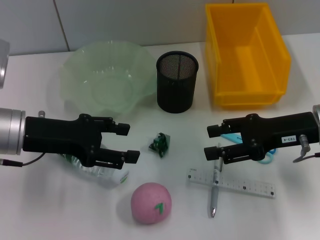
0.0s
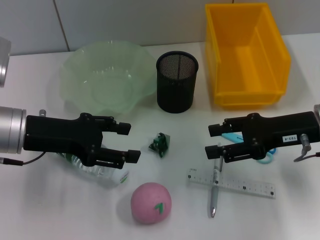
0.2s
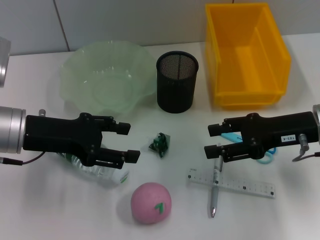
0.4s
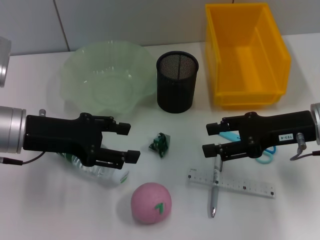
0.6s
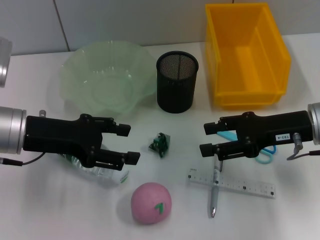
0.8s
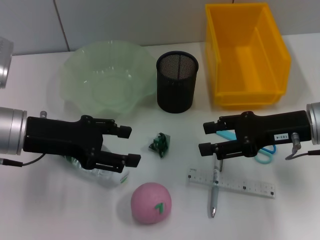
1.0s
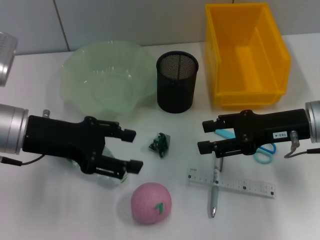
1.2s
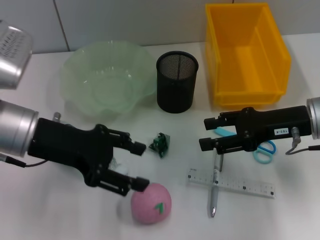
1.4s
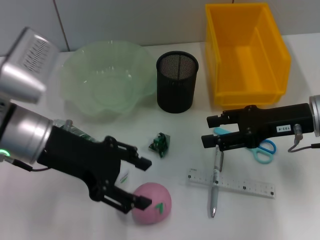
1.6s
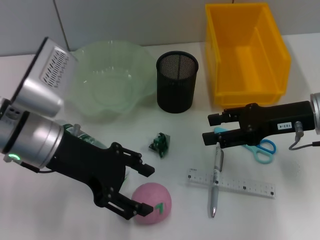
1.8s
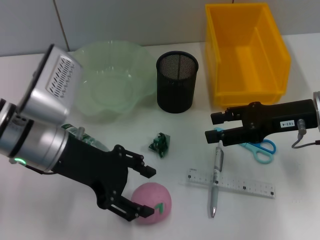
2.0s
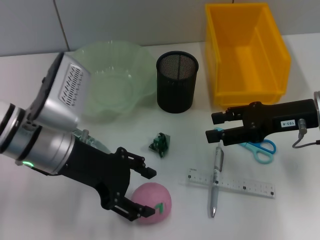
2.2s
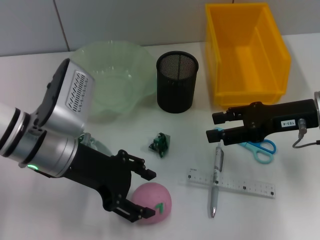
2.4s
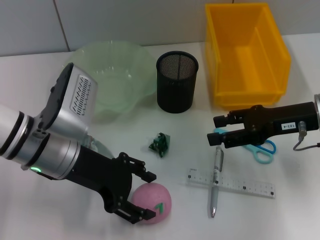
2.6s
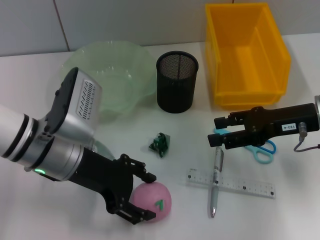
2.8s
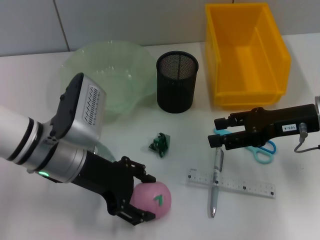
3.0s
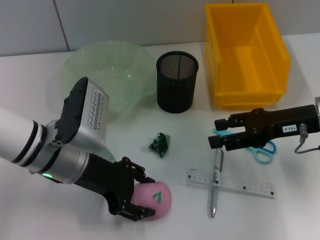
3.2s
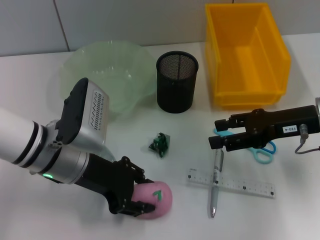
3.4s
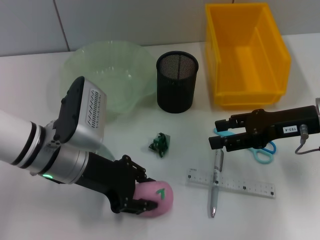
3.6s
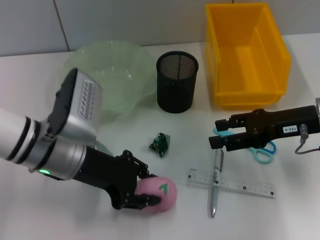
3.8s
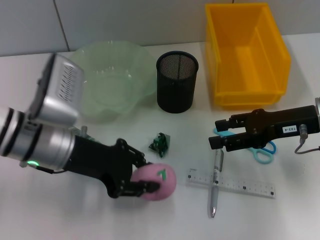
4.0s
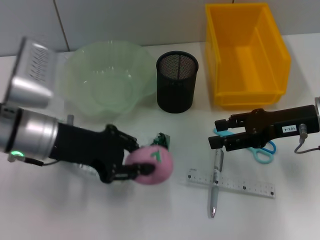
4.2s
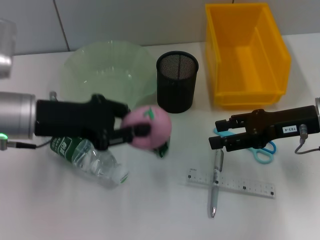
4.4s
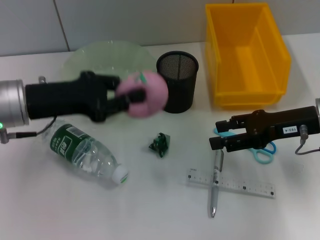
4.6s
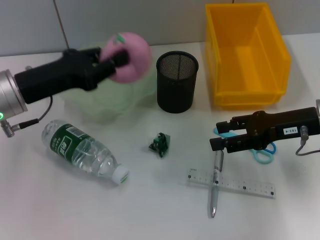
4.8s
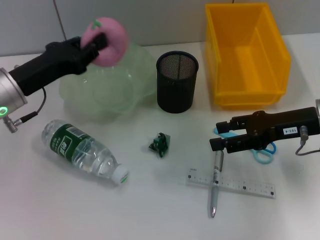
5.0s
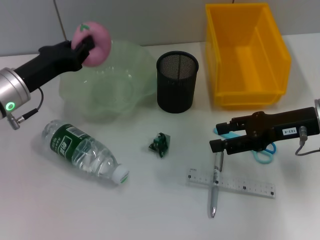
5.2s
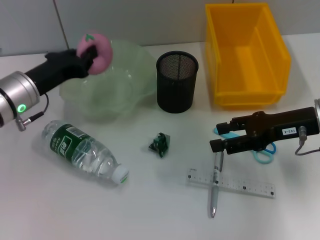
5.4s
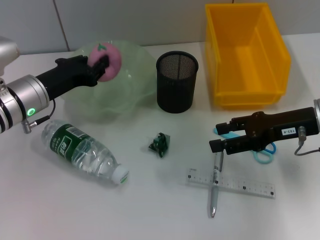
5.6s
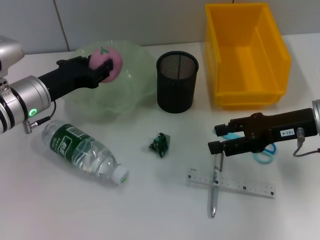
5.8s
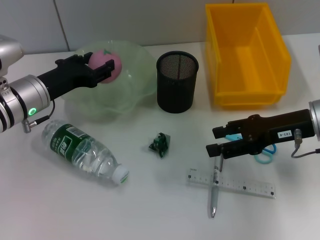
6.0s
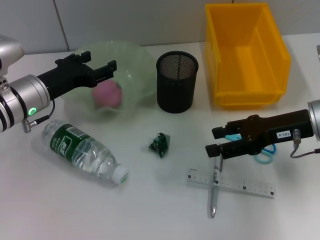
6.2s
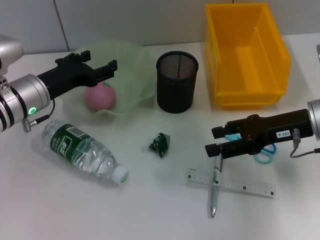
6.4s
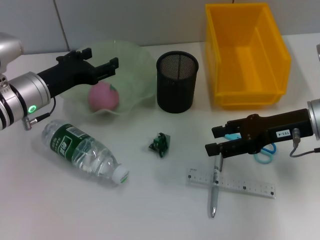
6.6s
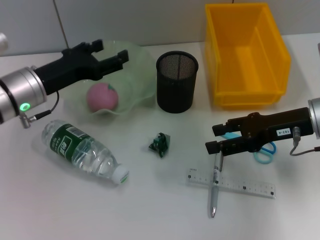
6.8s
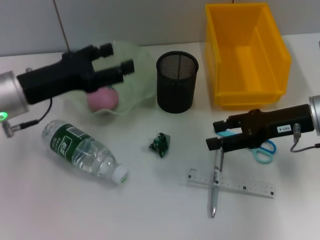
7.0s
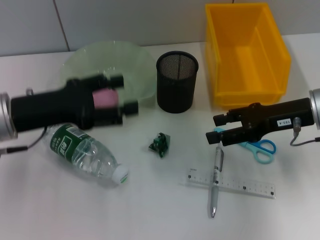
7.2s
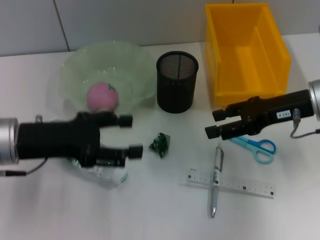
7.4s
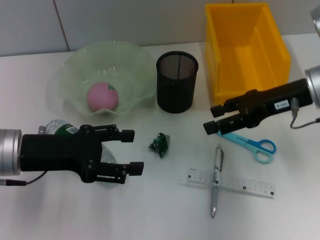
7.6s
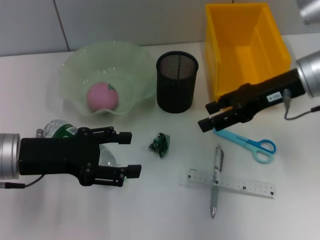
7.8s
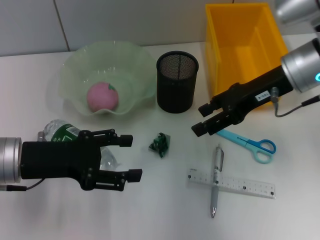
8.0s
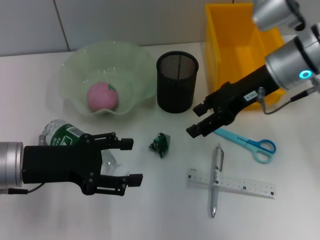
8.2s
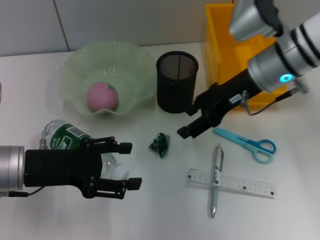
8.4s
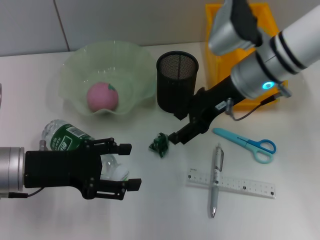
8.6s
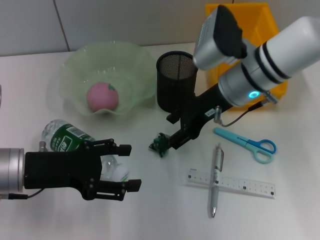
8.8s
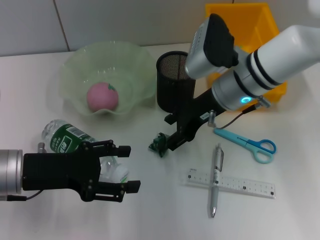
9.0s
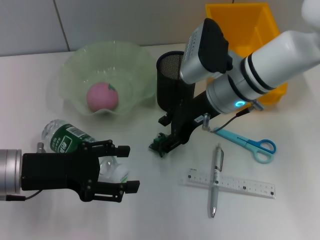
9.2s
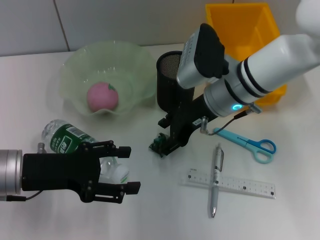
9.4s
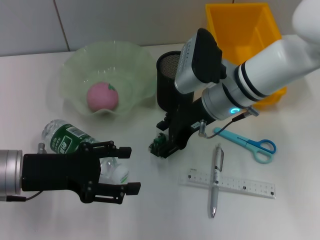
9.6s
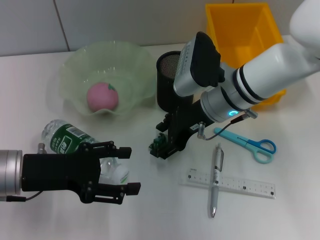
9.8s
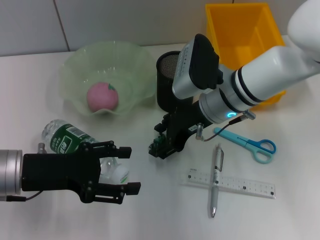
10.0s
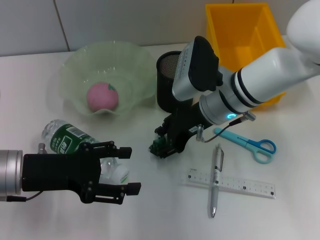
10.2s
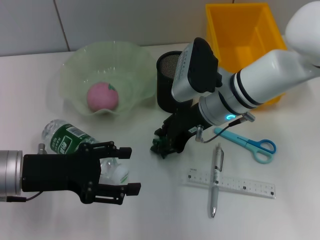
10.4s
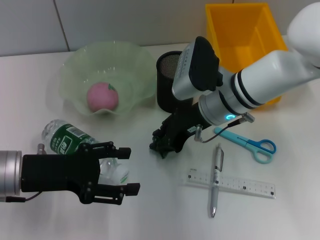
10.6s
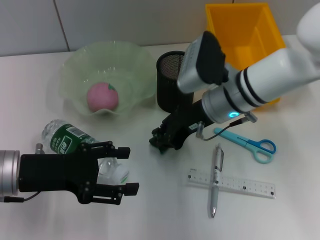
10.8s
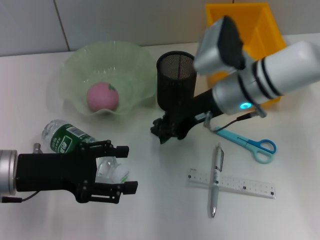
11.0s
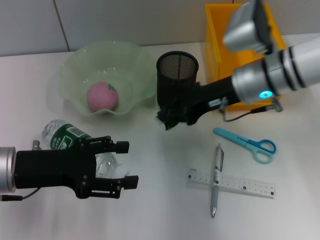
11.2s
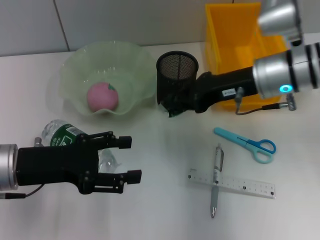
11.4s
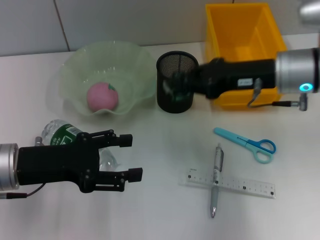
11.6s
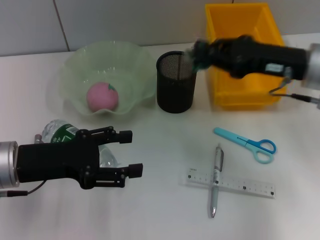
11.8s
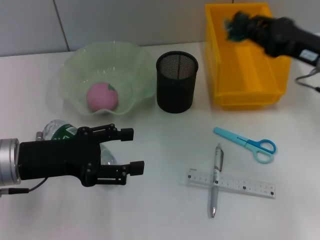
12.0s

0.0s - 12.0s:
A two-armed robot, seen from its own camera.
Step, 0.0s - 3.4s: Grab the peach with the left hand.
Step, 3.8s - 6.2s: Place the peach into the fruit bowl with the left hand.
Step, 6.4s - 10.4s: Grab the plastic with the right hand.
1.6s - 3.0s: The left gripper goes about 5 cm downward.
3.0s - 4.4s: The left gripper goes about 5 cm to the left, and closes.
4.4s - 6.0s: The left gripper is displaced downward and forward by approximately 10 cm.
6.0s - 7.6s: The left gripper moves backward, roughly 10 cm, and opens. The right gripper shifts by approximately 5 cm.
7.6s - 9.0s: The right gripper goes approximately 10 cm to the left.
9.0s - 10.4s: The grippers move only a little.
10.4s - 12.0s: The right gripper heads to the right, covering some 15 cm, and closes.

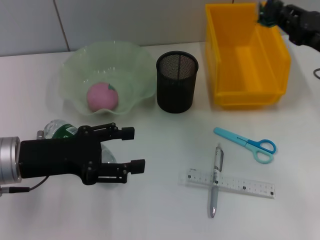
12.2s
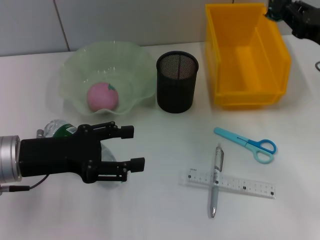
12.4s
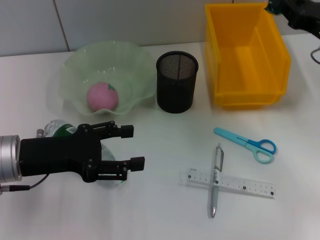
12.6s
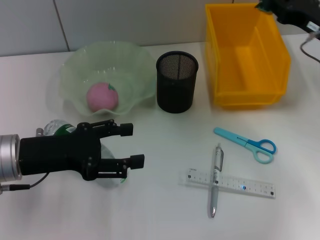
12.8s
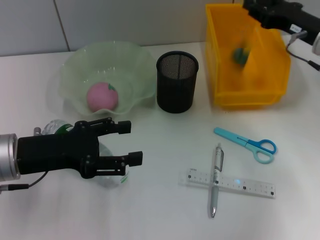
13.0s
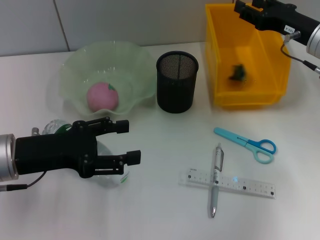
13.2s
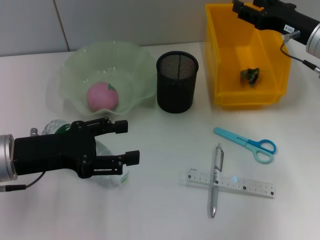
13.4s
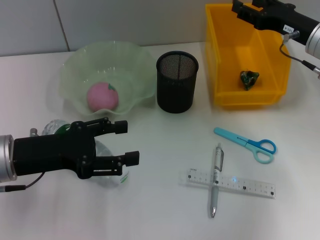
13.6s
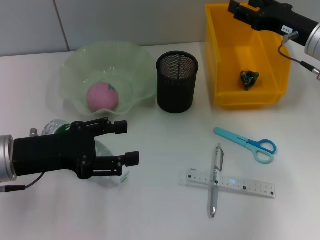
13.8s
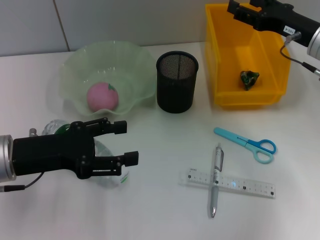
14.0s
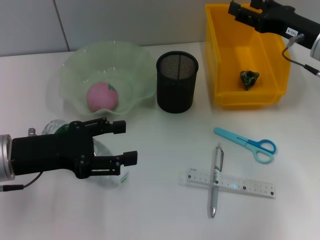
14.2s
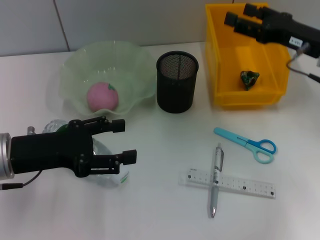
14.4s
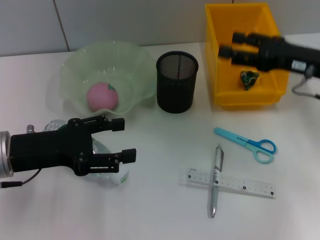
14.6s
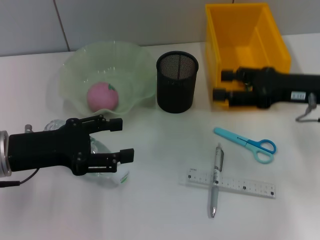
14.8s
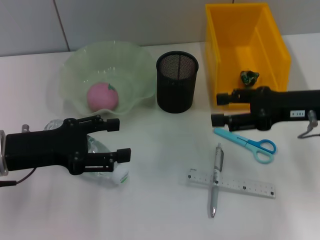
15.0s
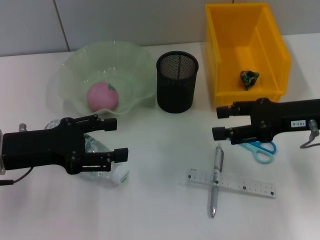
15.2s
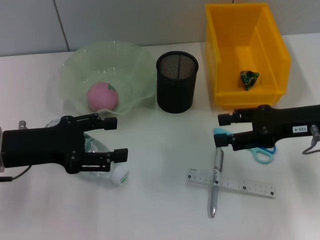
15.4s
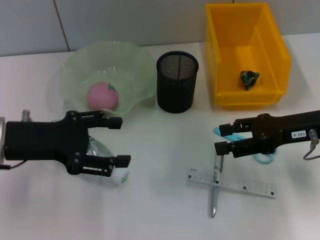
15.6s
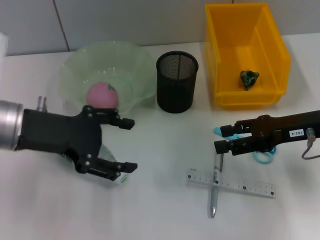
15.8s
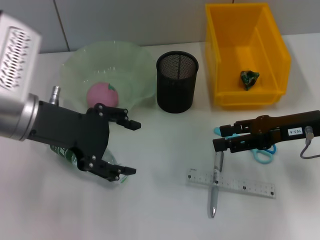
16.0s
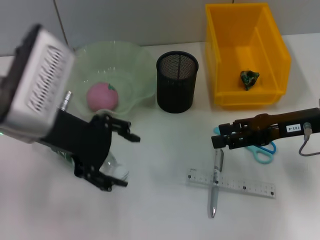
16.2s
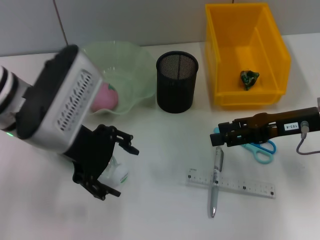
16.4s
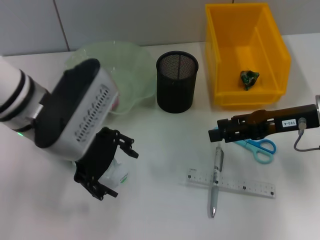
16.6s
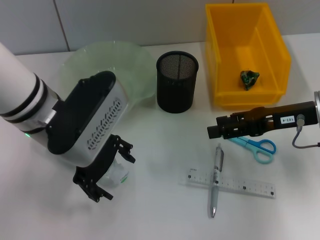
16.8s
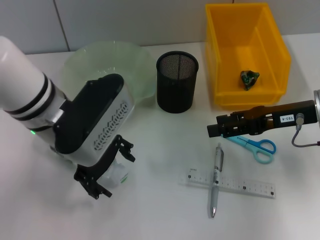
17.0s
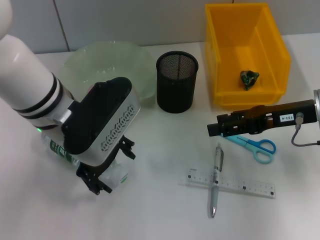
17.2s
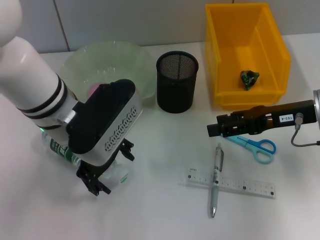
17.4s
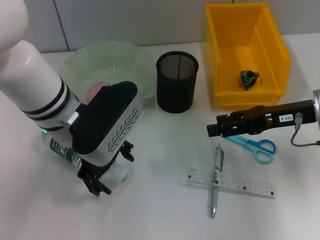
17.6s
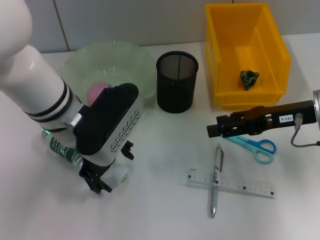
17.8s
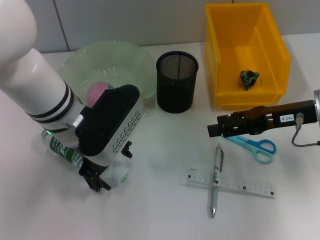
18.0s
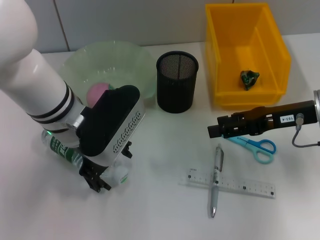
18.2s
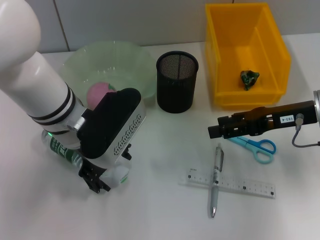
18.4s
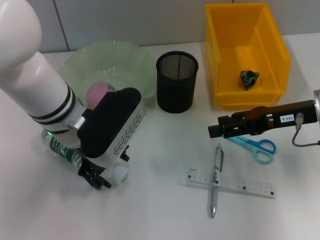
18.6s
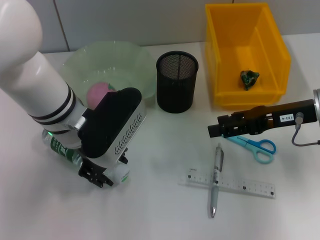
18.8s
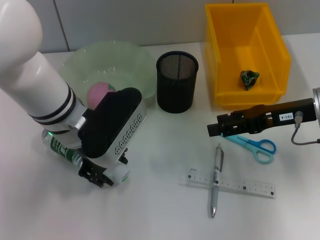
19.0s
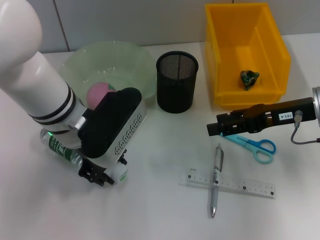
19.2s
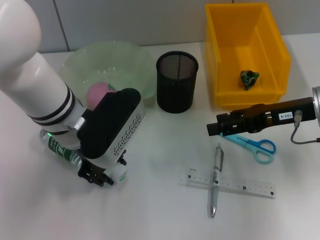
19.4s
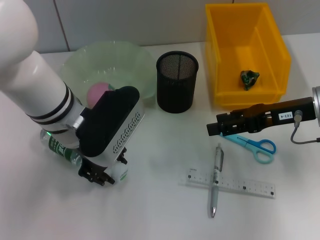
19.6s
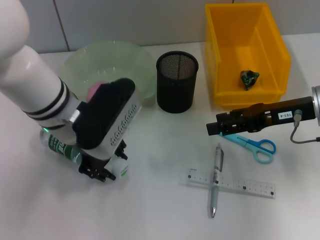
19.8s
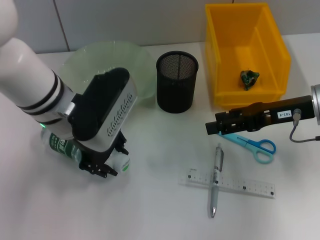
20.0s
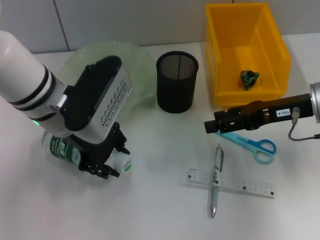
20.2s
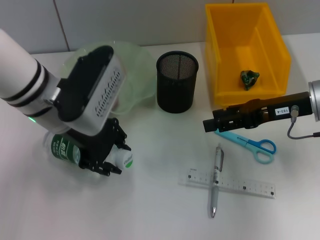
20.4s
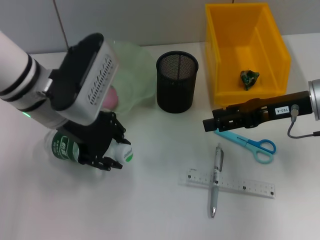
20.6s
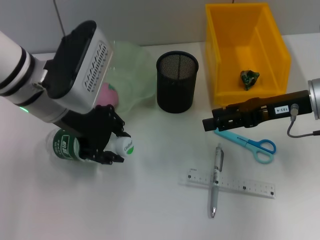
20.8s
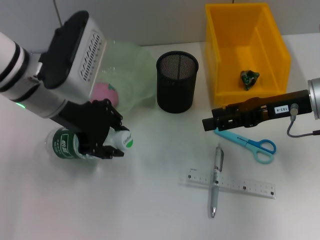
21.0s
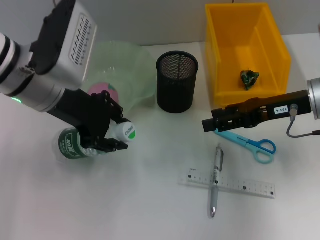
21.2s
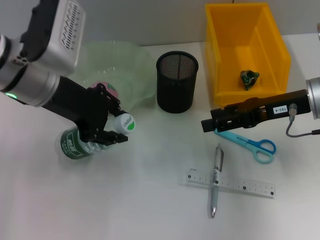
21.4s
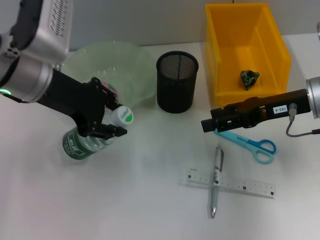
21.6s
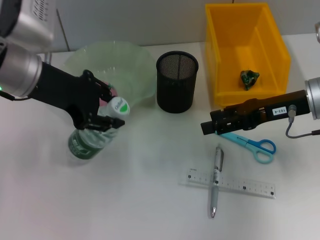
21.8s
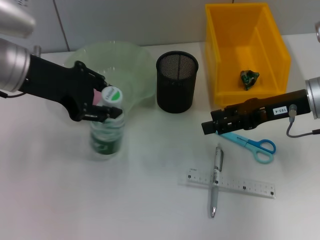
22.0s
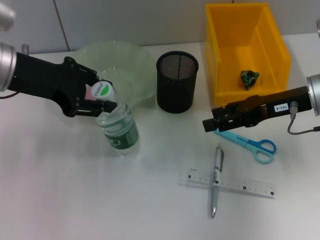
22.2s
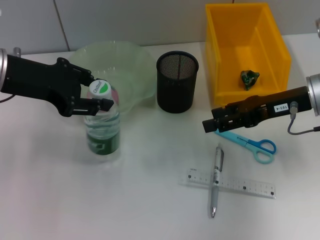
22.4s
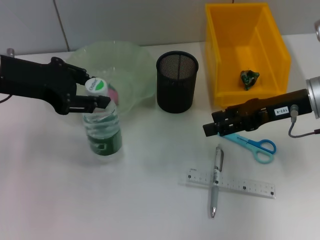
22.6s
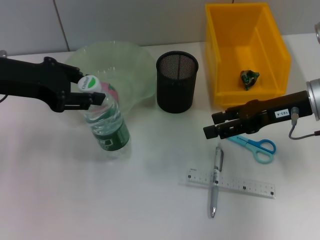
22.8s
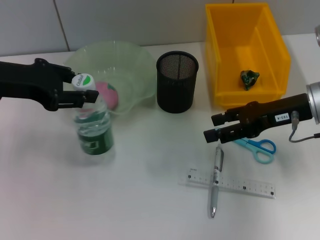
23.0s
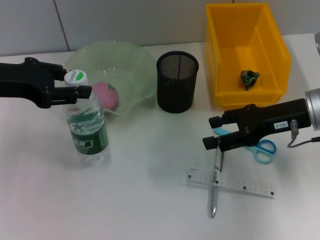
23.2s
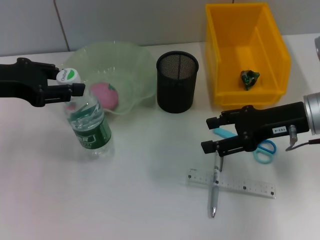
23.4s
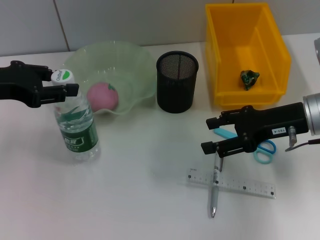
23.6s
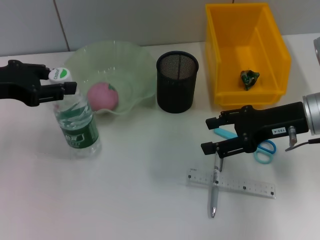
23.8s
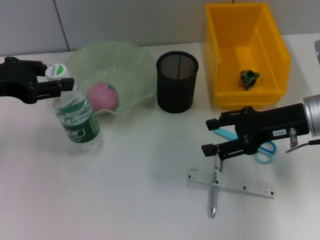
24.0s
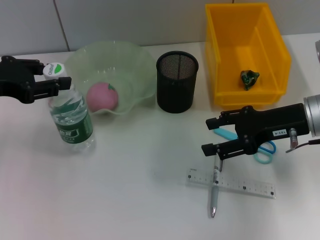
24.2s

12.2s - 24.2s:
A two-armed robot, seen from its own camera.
Step, 13.4s - 19.4s: Grab the water bottle with the left hand.
12.2s - 13.8s: The right gripper travels forward by approximately 5 cm, and opens its fingers.
13.8s - 15.2s: The right gripper is displaced backward by approximately 10 cm.
15.2s - 16.6s: The left gripper shifts roughly 15 cm to the right and upward.
16.6s - 18.2s: The left gripper moves some 5 cm.
18.2s - 19.8s: The left gripper closes.
19.8s - 21.2s: The left gripper moves roughly 5 cm.
21.2s - 22.6s: The left gripper travels to the left by some 5 cm.
22.6s - 24.2s: The left gripper heads to the left, covering roughly 5 cm.
